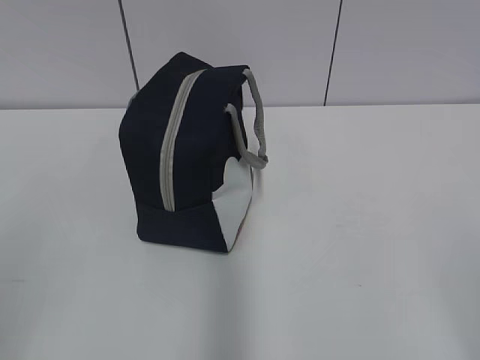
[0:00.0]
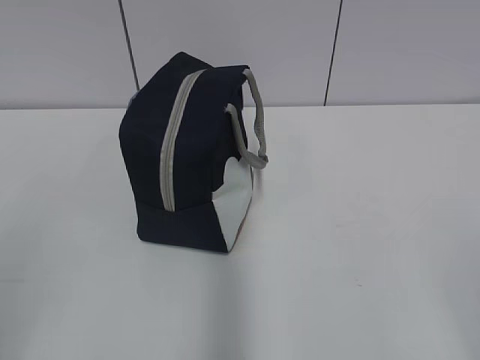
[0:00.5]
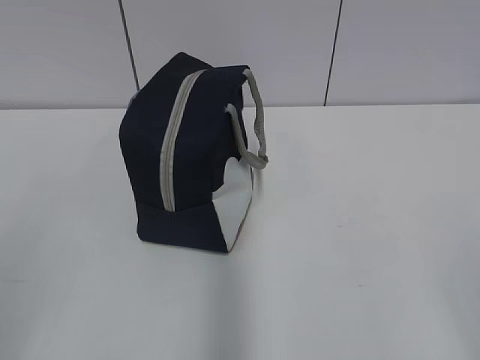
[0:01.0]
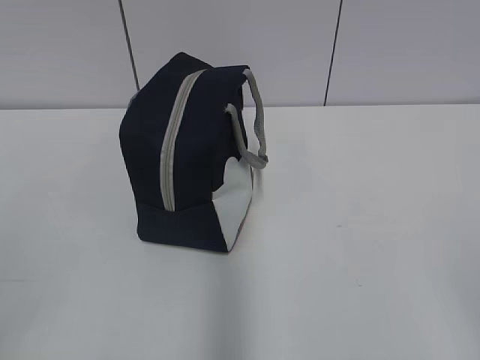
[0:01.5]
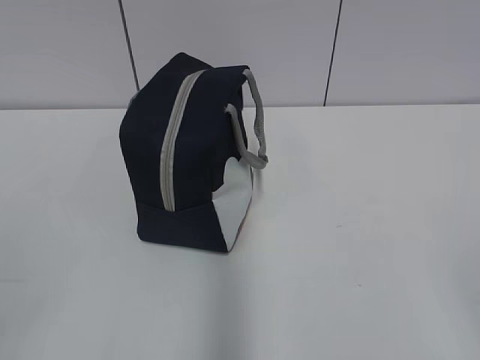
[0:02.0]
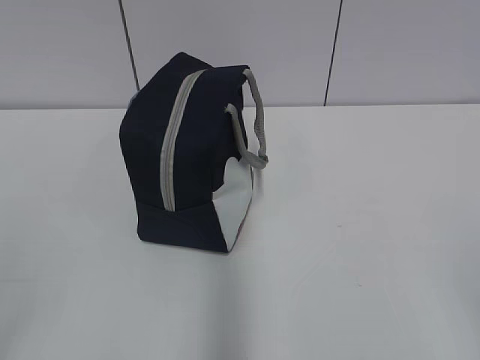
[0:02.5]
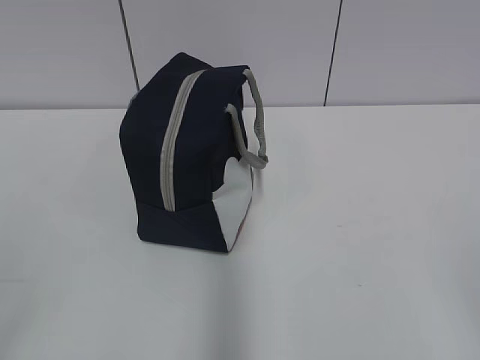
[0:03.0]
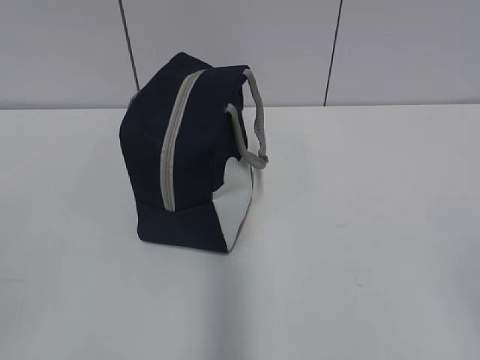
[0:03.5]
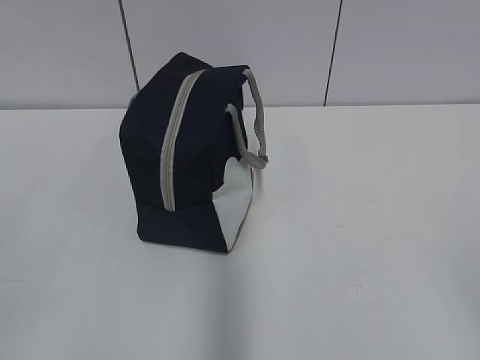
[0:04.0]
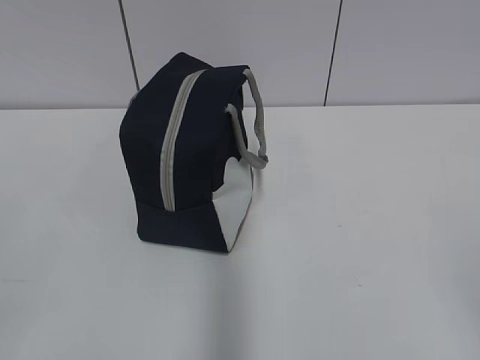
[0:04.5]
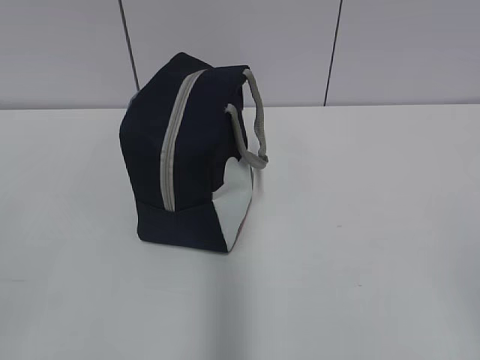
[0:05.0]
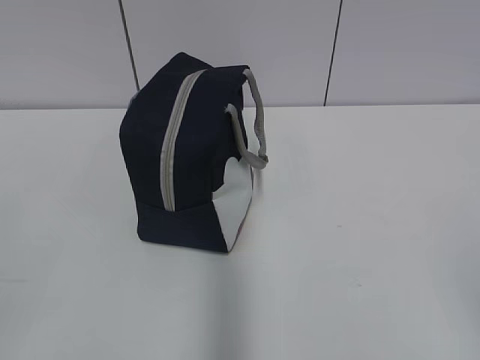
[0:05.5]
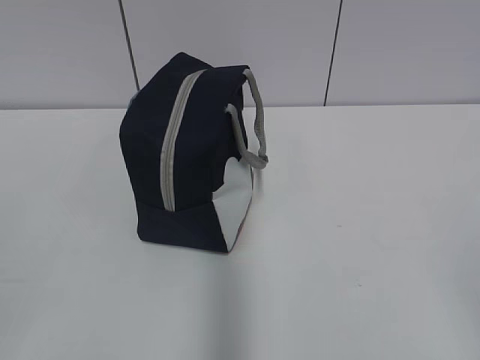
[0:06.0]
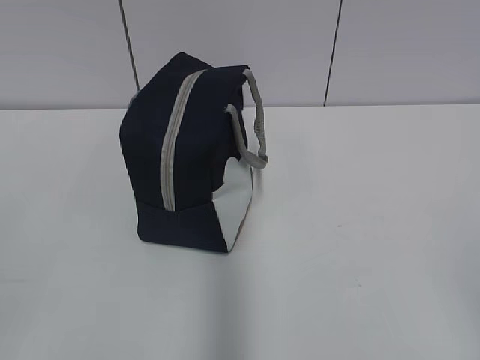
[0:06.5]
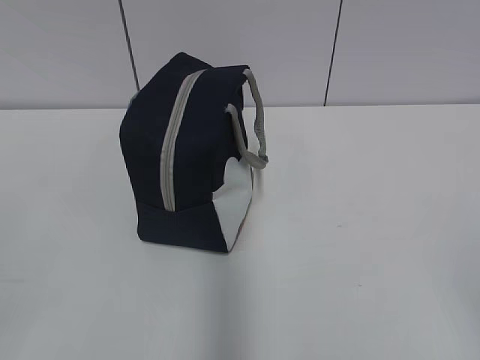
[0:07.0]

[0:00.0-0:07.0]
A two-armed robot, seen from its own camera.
0:05.0 to 0:07.0: The two grippers keep their place.
